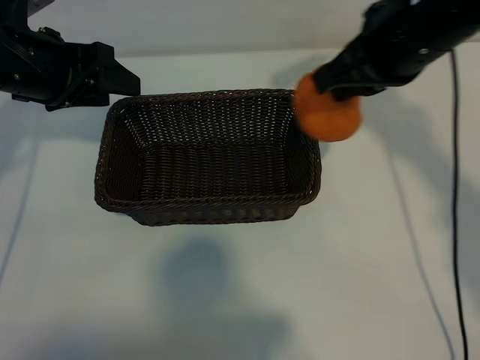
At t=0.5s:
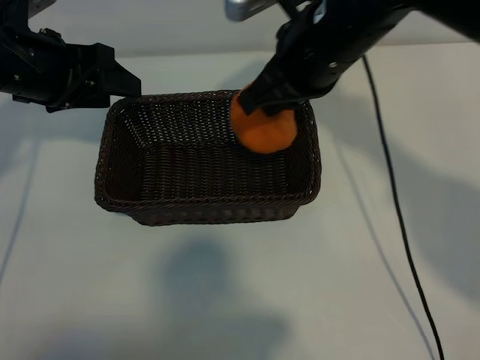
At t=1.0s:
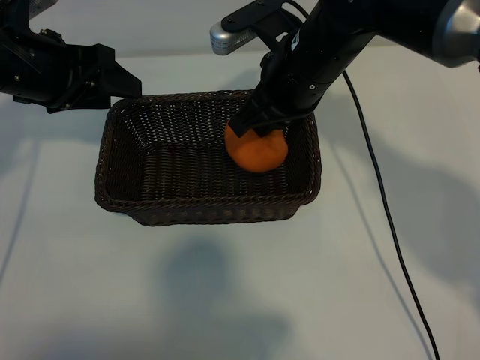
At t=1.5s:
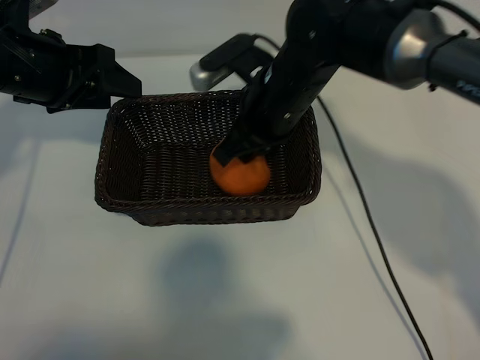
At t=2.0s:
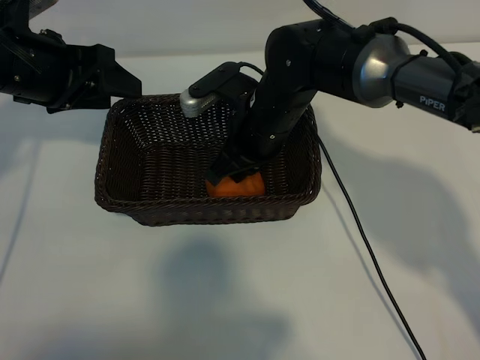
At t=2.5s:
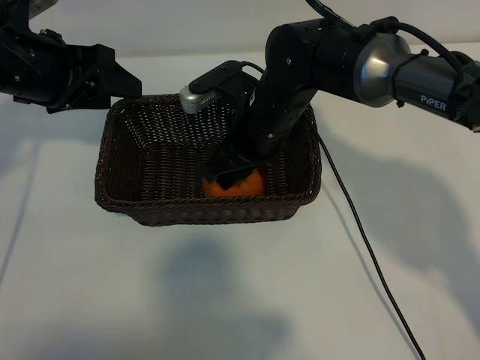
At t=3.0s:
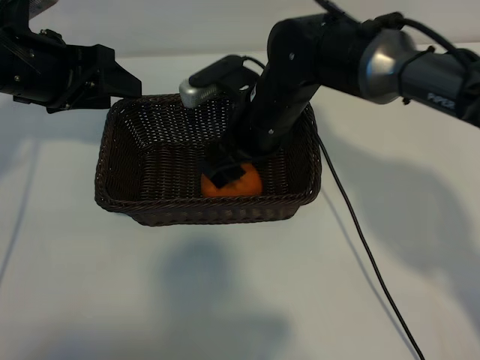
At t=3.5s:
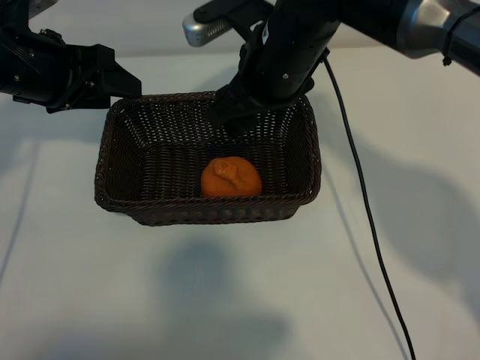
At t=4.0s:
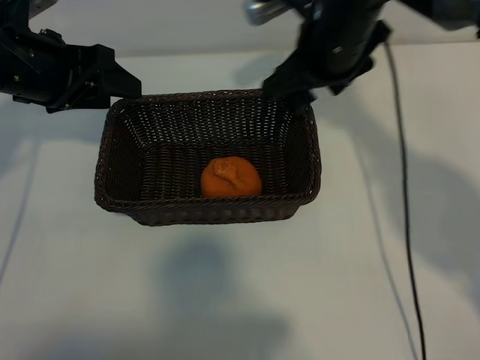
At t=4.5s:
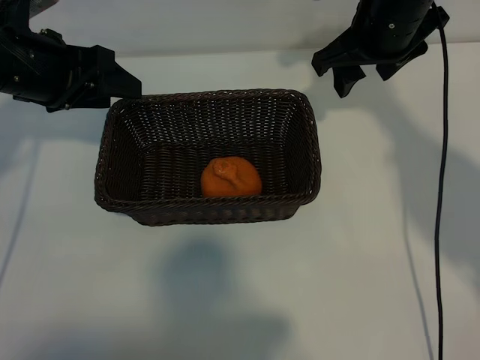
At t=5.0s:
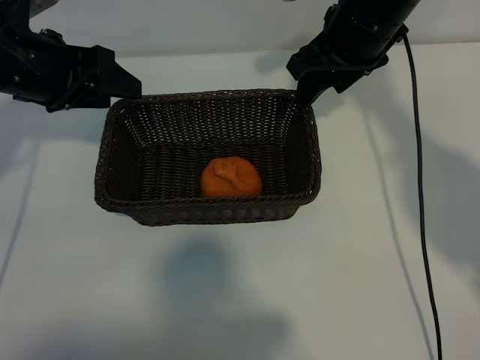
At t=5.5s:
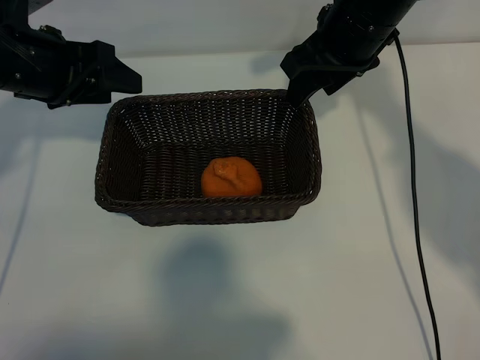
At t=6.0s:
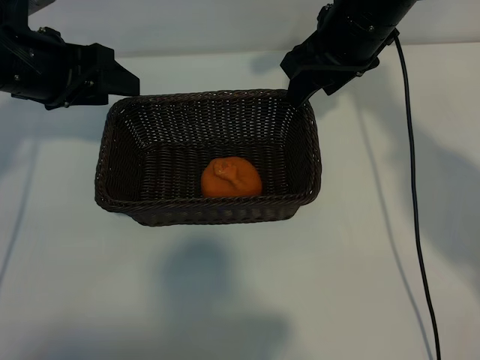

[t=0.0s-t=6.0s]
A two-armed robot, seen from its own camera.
Task of the whole recording: pick up the orange and put it into the basket.
Step, t=0.0s to t=2.5s: Place the orange in the basket with right gripper.

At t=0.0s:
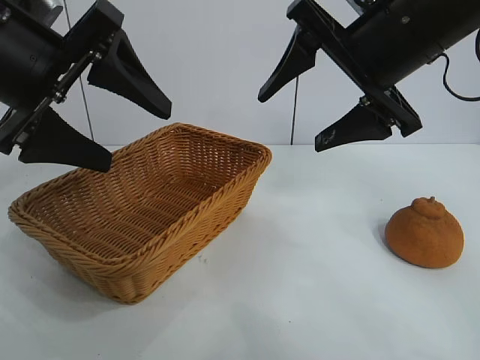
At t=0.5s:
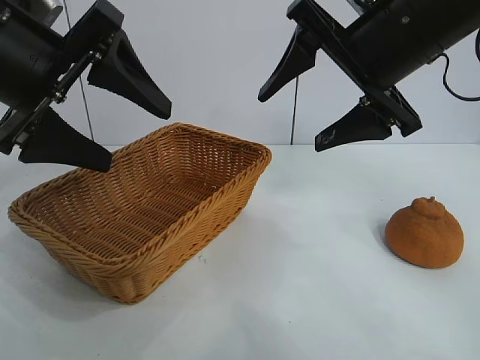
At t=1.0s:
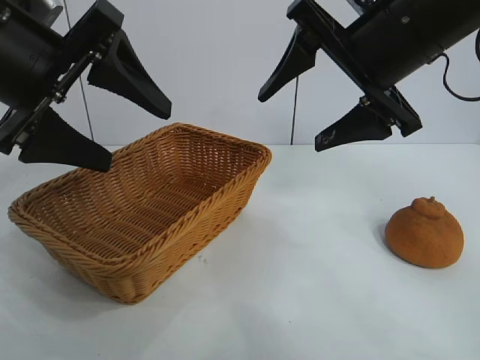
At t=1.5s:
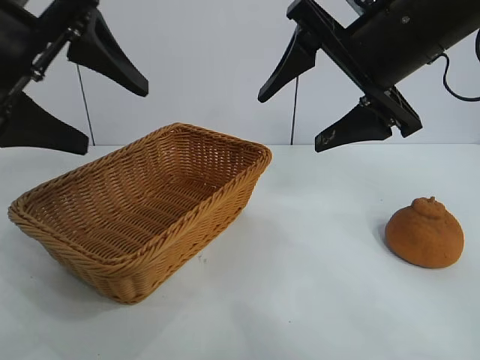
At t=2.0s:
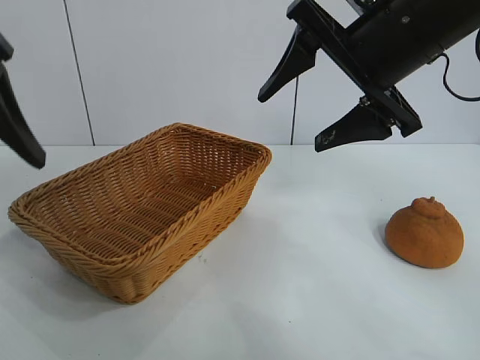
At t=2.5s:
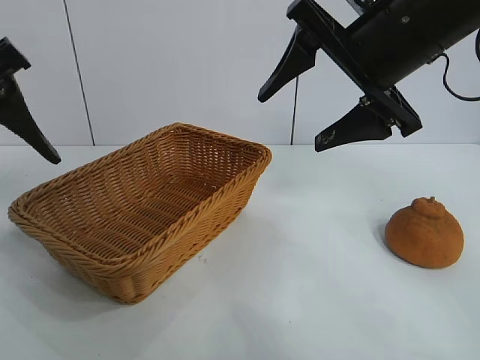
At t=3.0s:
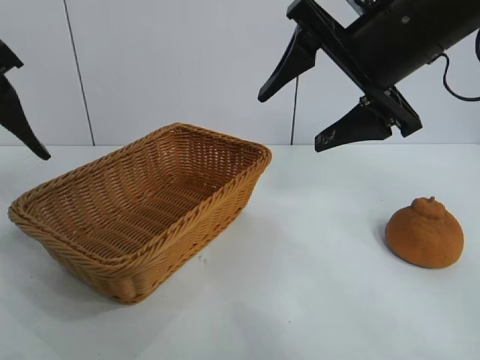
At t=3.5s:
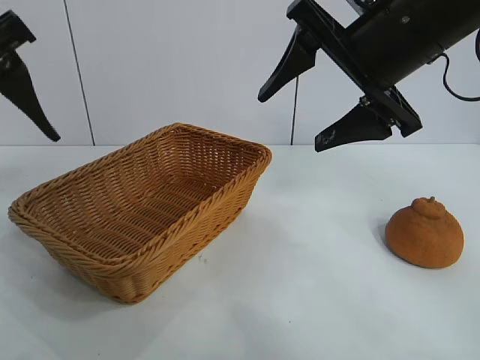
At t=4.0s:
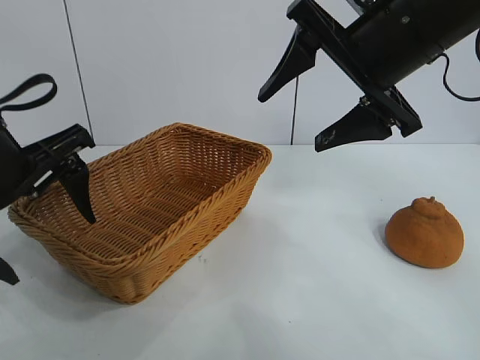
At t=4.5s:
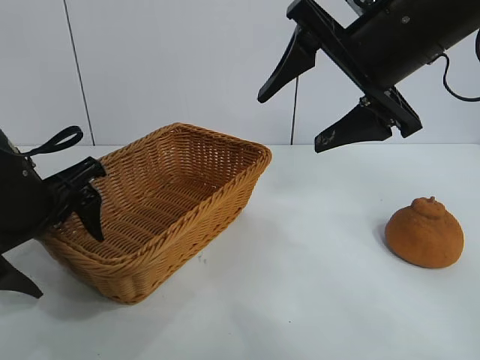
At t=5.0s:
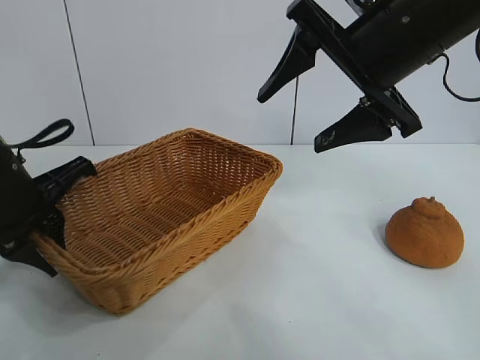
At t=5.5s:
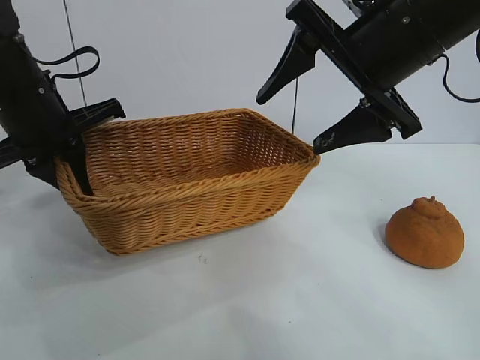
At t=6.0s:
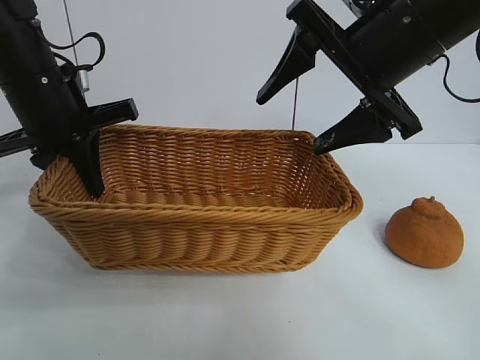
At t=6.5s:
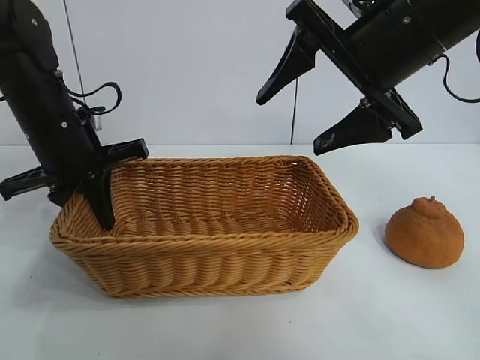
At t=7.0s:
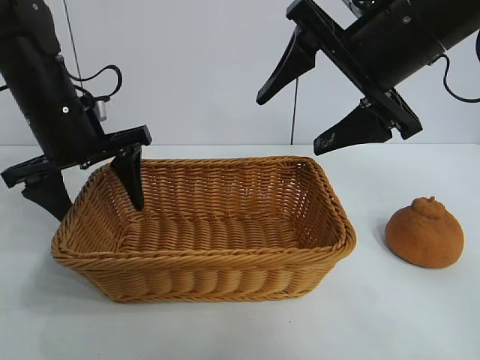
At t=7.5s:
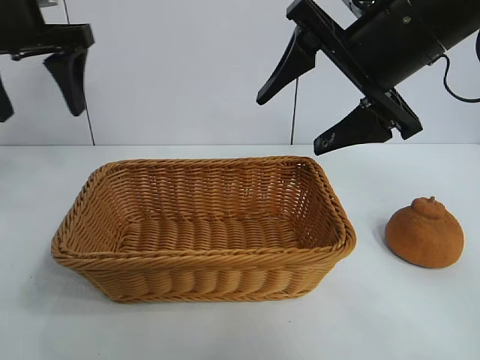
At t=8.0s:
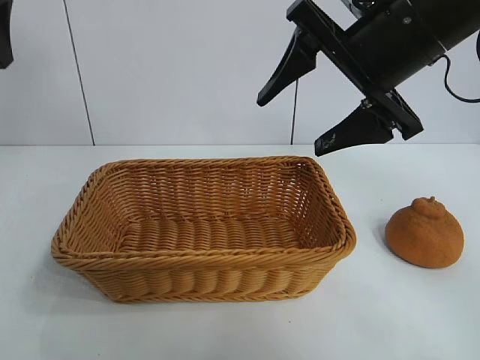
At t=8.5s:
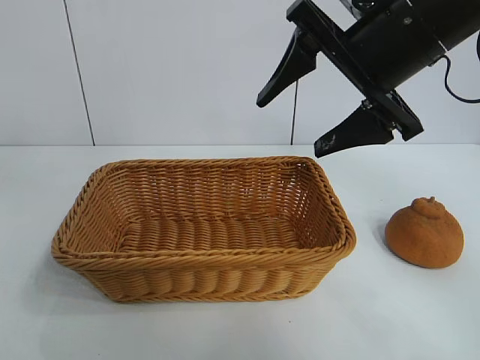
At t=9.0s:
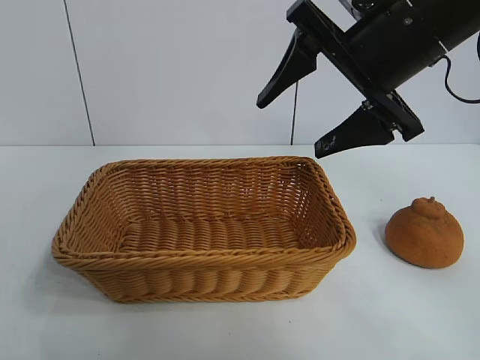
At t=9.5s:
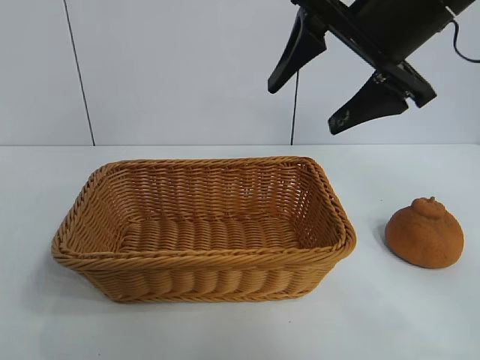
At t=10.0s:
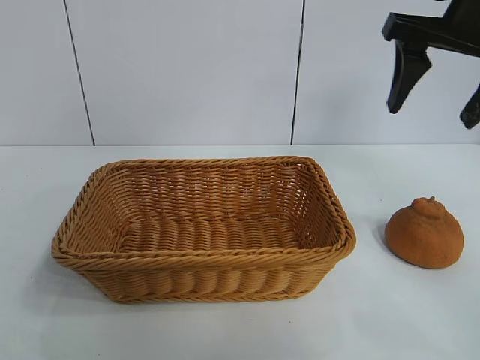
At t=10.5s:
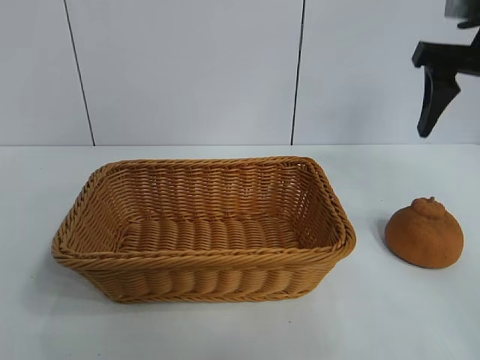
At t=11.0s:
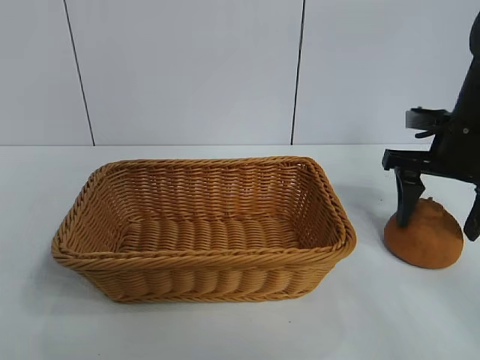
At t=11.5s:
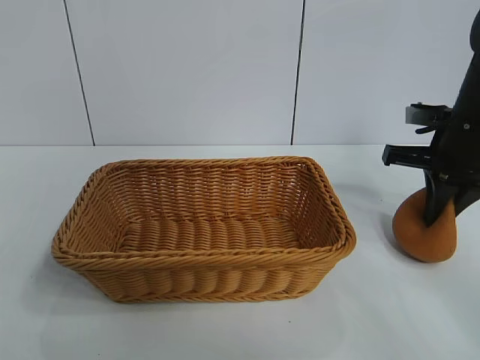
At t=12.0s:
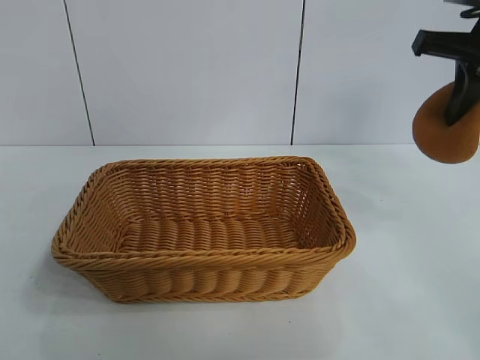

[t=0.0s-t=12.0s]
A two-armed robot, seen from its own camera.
Task of the whole recording: pick up the orange and put it into the basket.
Step, t=1.0s to t=4.5s: Grasp the basket with left gripper.
Step, t=5.0s to t=6.5s: Place the basket in the center of view with left gripper.
Step, t=7.0s to t=11.0s: Grasp the orange with right gripper.

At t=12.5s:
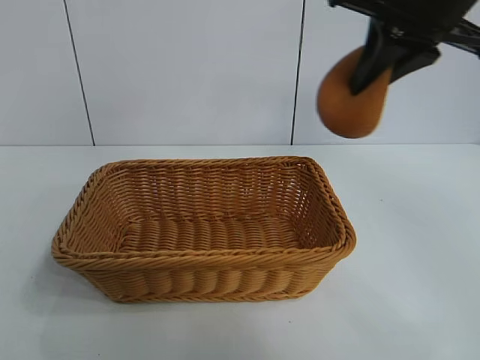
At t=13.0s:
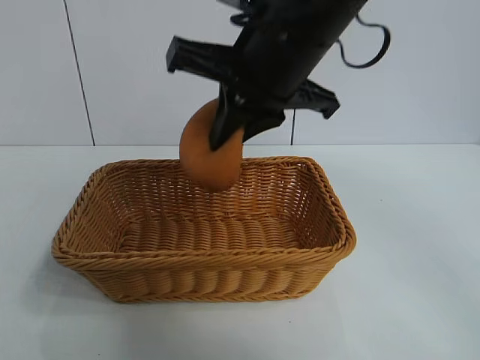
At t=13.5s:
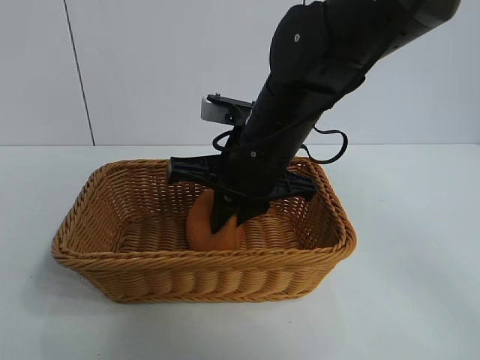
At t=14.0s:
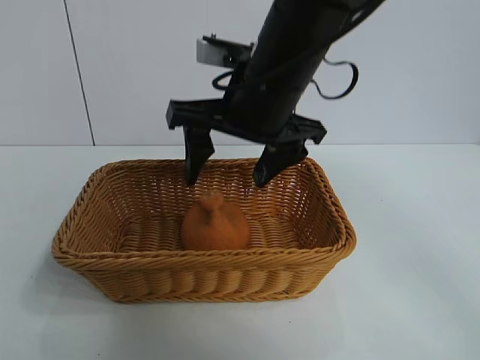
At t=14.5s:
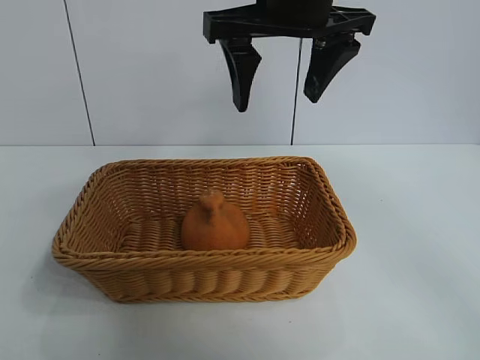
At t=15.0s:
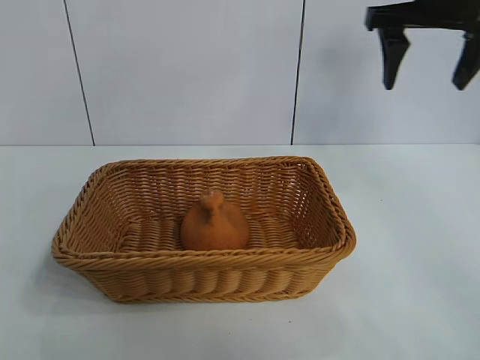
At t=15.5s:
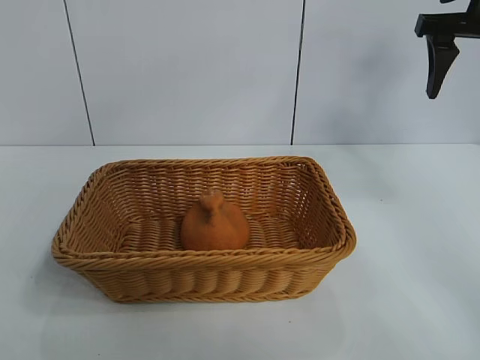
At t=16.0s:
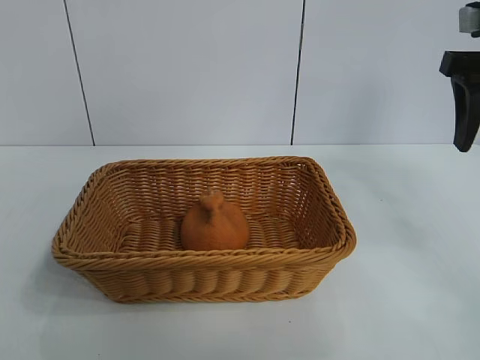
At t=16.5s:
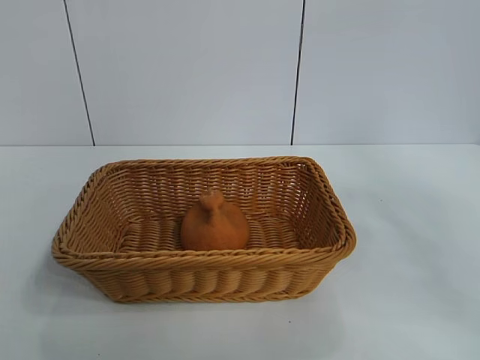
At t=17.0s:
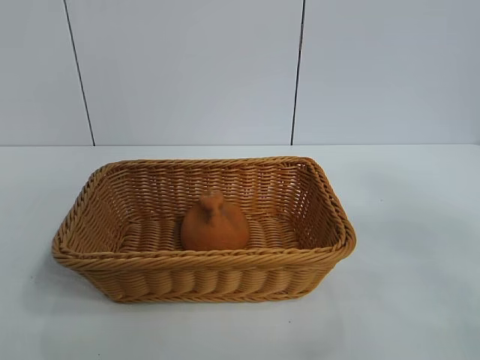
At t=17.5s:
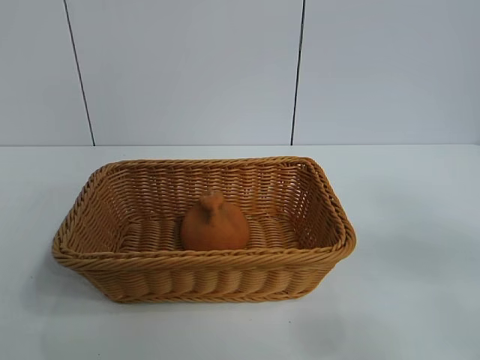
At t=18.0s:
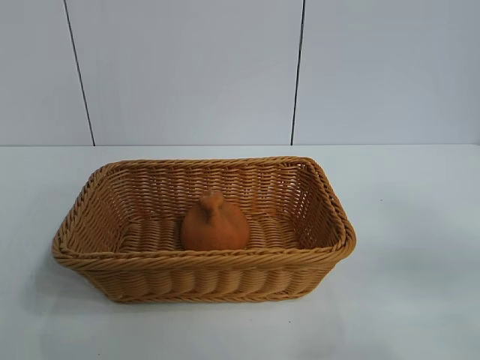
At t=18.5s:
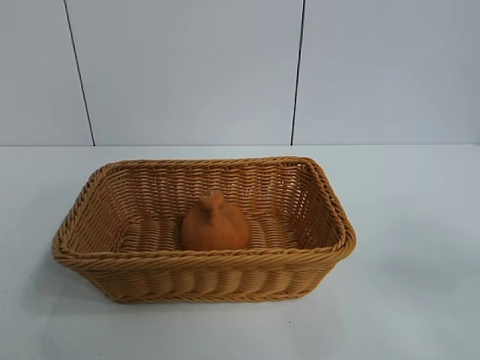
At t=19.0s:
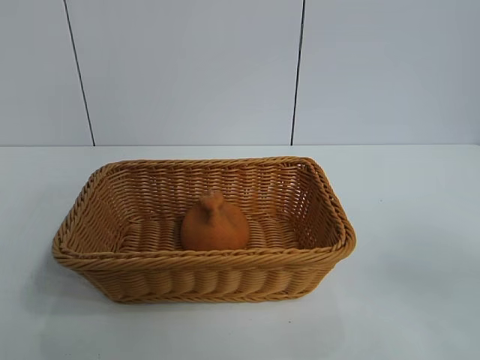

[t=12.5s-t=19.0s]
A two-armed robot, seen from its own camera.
Task of the whole recording: pick up the orange and put it into the basket.
Step, t=12.5s to t=14.0s: Place the orange in the basket with right gripper.
